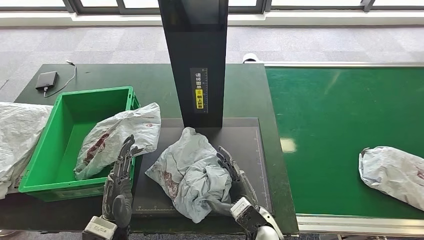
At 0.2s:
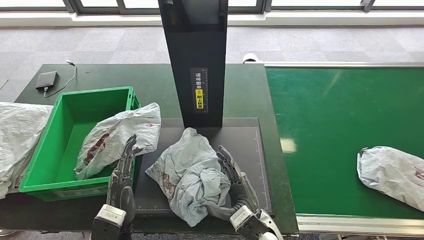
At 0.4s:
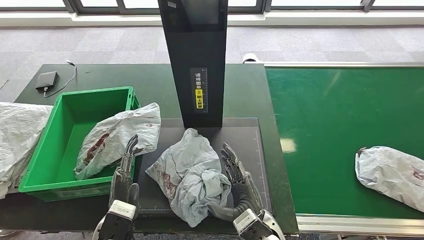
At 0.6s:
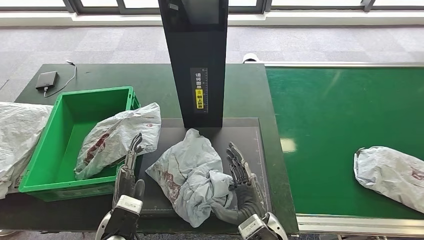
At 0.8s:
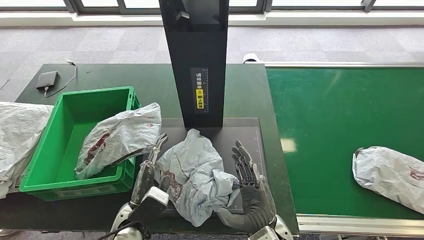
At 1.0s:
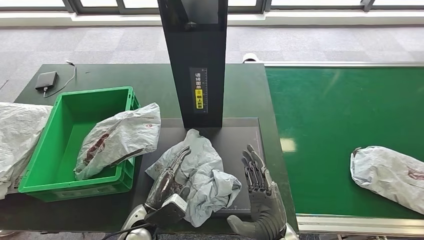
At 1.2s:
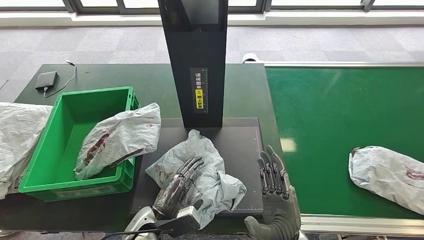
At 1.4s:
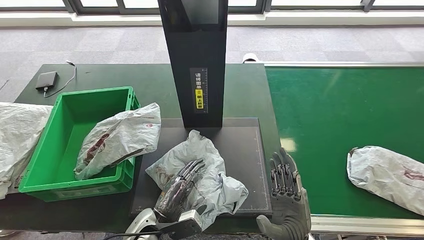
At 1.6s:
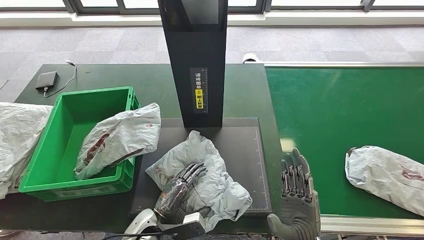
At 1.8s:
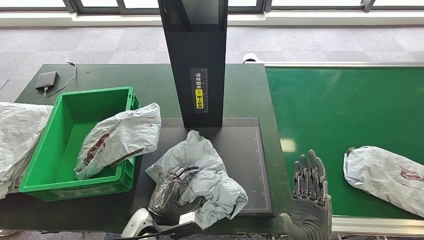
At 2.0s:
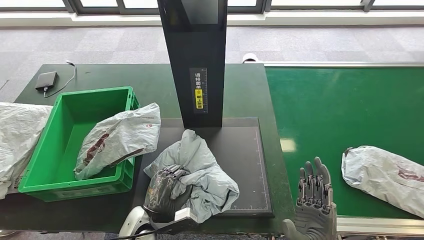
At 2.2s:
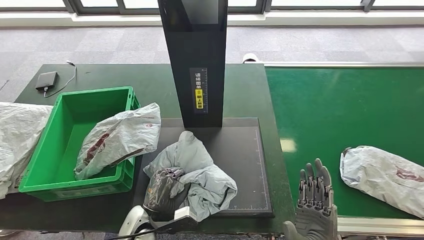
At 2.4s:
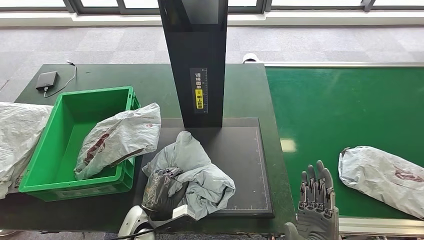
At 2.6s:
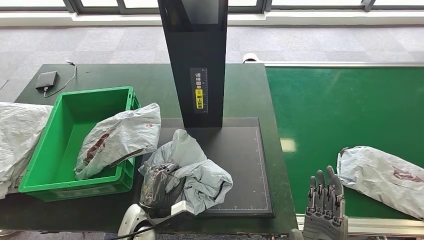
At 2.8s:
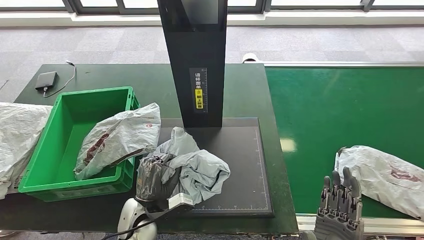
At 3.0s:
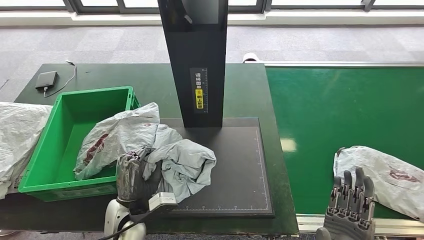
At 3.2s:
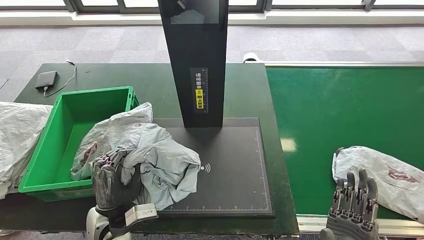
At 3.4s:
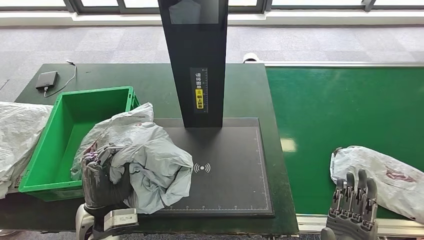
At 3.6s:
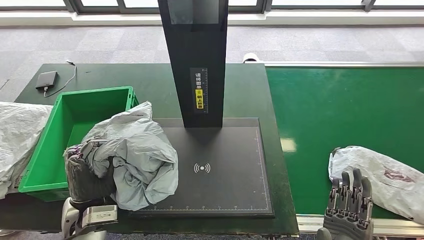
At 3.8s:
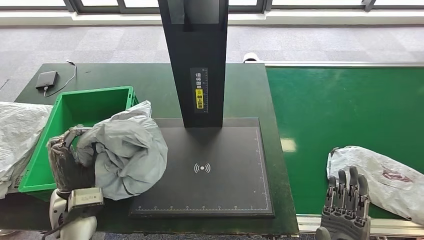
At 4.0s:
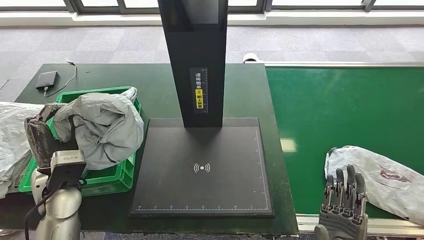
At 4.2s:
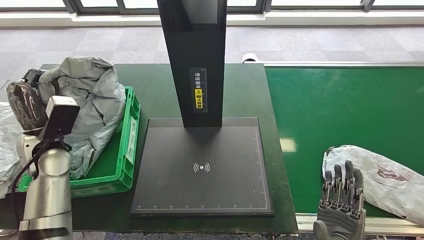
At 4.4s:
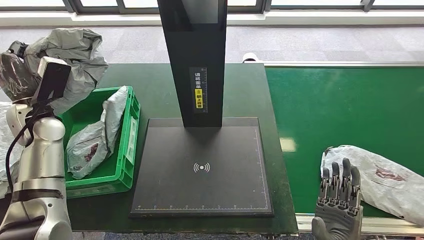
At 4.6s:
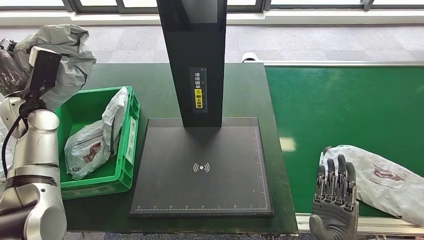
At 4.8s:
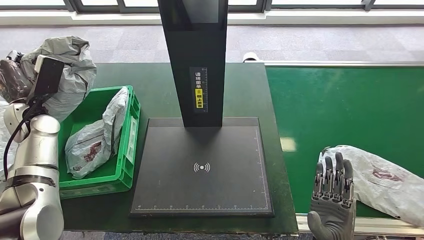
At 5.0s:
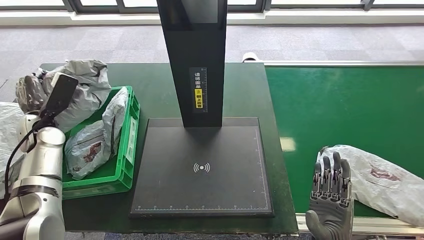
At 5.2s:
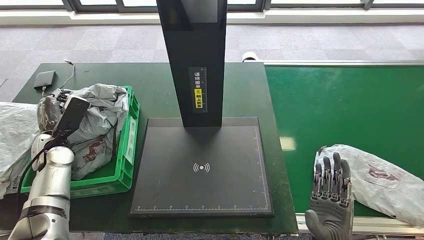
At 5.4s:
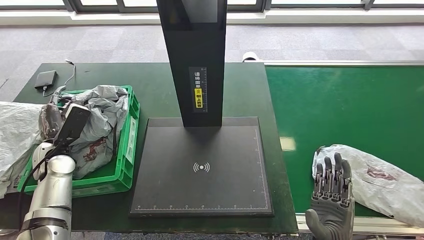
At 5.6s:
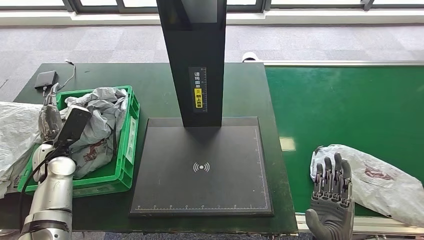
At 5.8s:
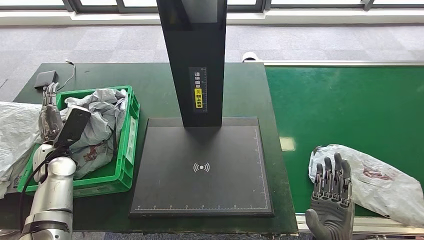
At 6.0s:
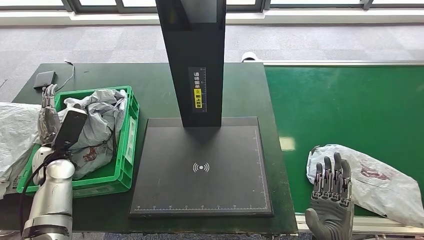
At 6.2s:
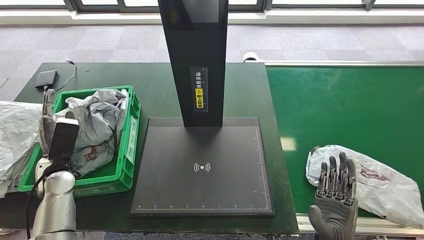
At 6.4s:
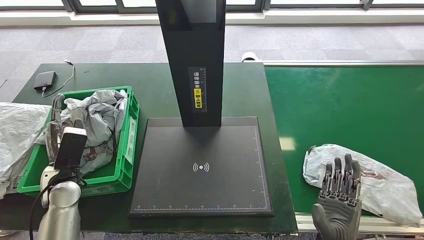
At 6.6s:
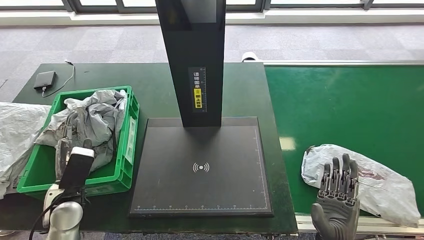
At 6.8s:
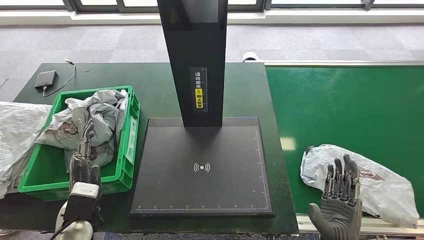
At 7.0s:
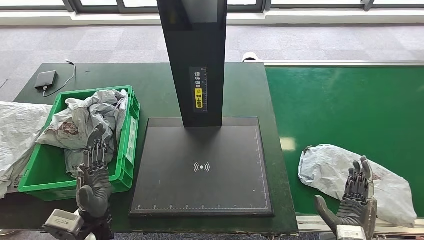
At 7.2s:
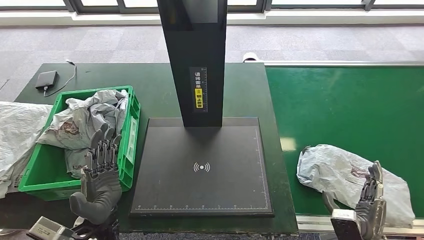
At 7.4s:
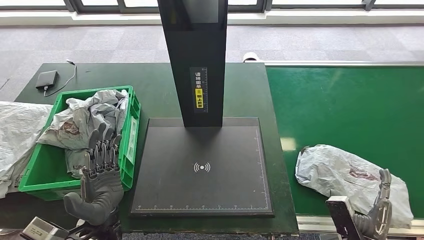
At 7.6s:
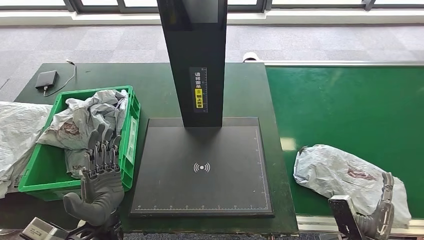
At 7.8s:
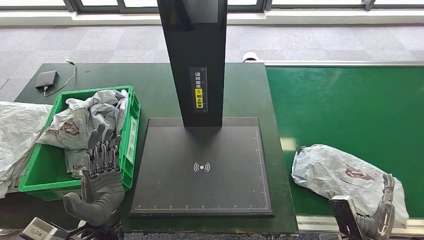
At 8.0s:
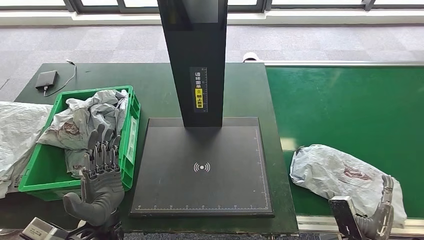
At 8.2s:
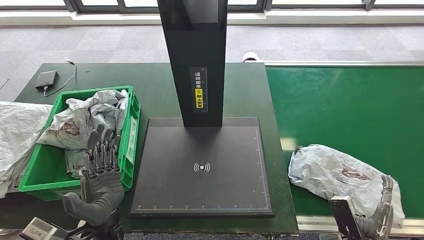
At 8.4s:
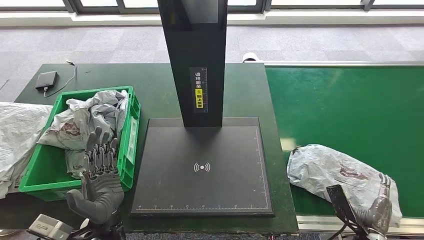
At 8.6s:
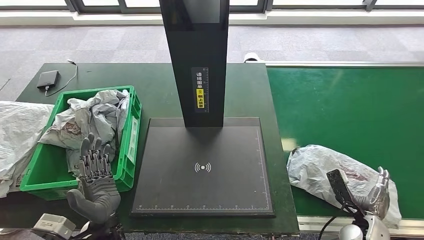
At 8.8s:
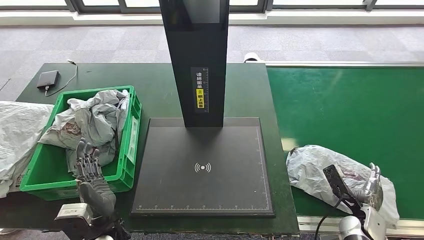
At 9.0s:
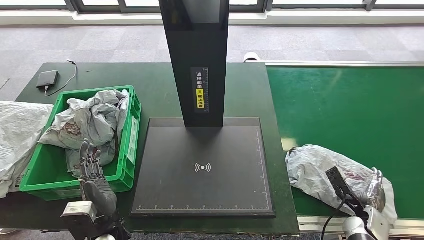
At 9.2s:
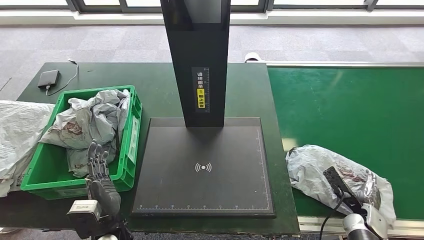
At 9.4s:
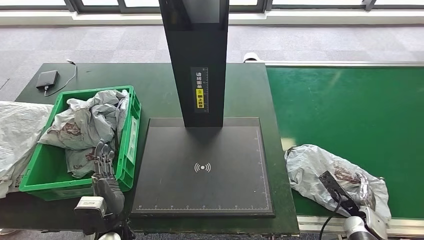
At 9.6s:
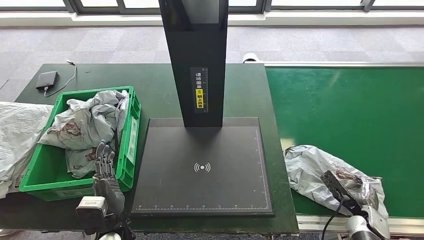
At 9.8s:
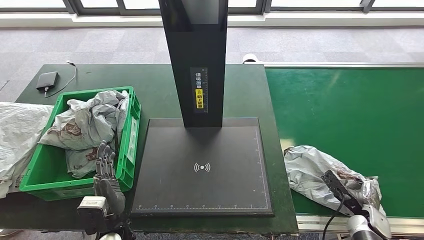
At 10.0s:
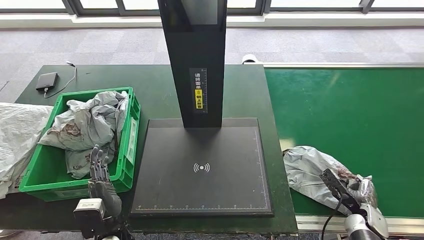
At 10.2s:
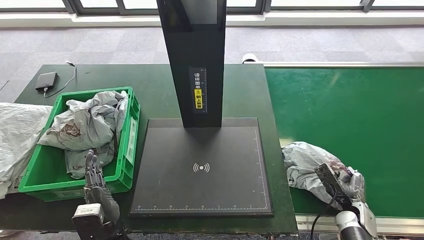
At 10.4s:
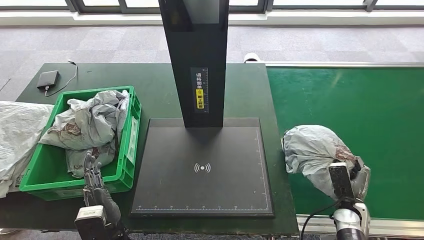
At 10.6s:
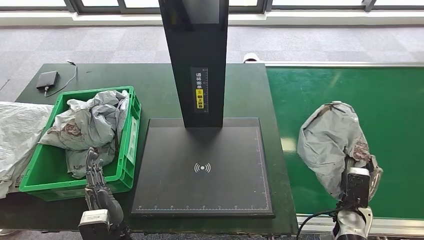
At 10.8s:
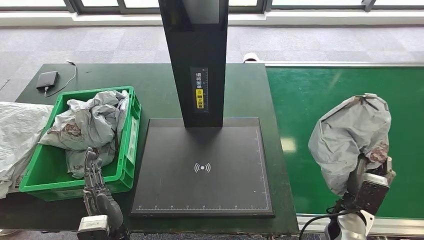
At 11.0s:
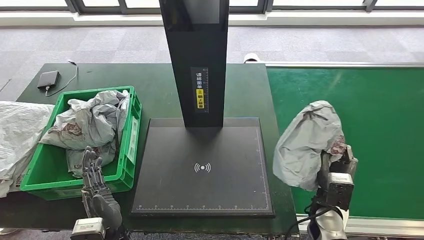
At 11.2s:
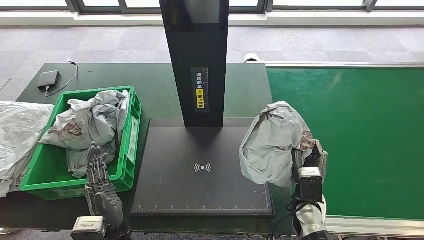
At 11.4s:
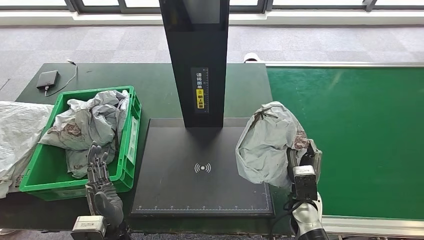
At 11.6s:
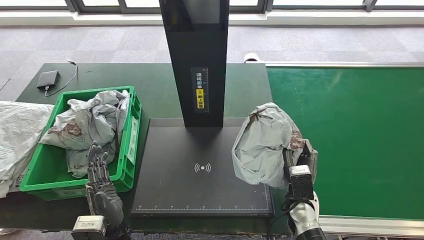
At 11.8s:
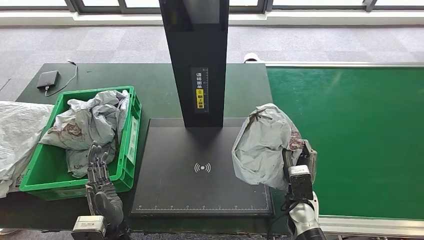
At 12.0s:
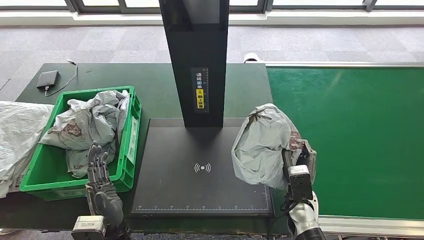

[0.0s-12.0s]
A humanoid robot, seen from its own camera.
Step, 0.0s to 2.6s: Pick up the parcel from the inbound machine.
Step, 3.0s to 6.6s: Place the parcel into the delivery box.
Step, 6.8s to 11.4s: Pick up the parcel from the conveyor belt.
0.0s to 1.6s: The right hand heads to the right, backward and upward, covering about 10 cm, while the left hand travels downward and to the right by some 10 cm.
1.6s to 3.0s: The left hand is displaced upward by approximately 5 cm; the right hand changes place by some 5 cm.
6.0s to 7.6s: The right hand shifts roughly 15 cm to the right and downward, while the left hand heads to the right and backward, covering approximately 25 cm.
7.6s to 9.0s: The right hand is displaced forward and to the right by approximately 10 cm.
10.4s to 12.0s: The right hand moves to the left, some 15 cm.

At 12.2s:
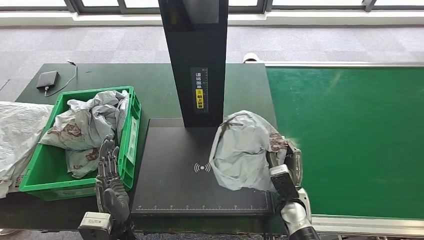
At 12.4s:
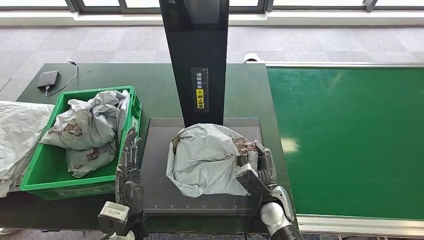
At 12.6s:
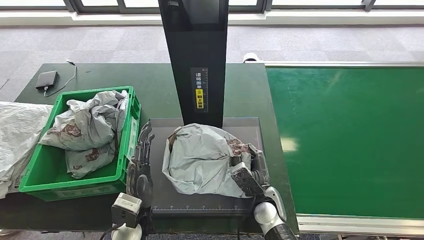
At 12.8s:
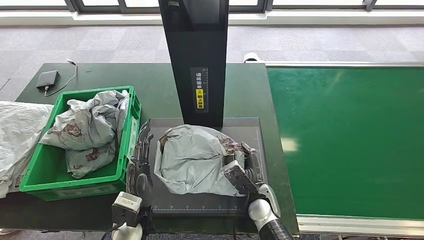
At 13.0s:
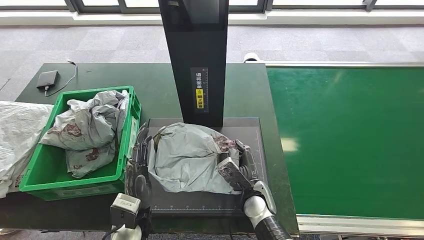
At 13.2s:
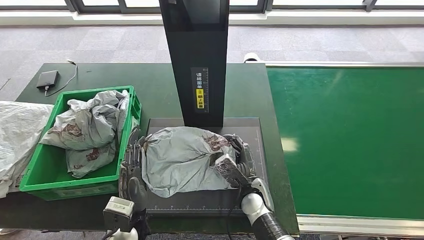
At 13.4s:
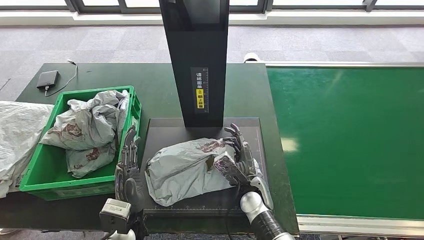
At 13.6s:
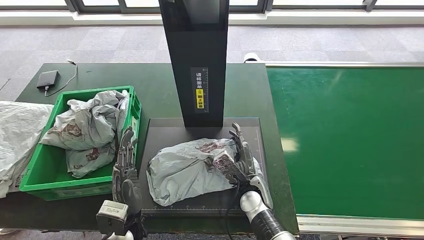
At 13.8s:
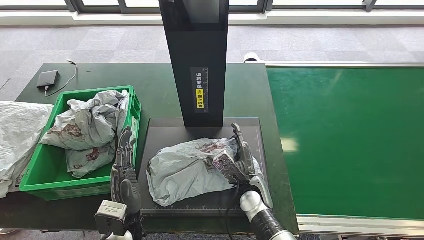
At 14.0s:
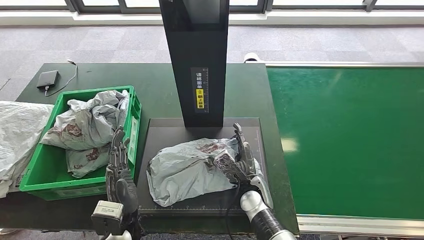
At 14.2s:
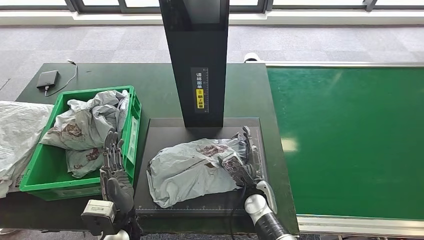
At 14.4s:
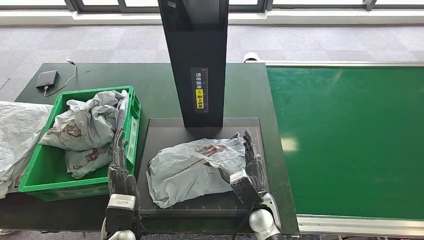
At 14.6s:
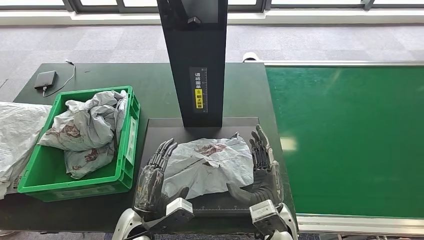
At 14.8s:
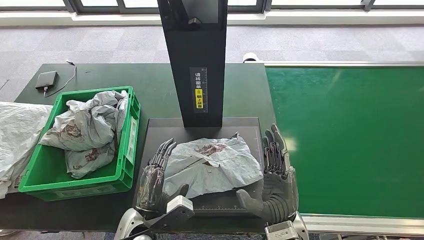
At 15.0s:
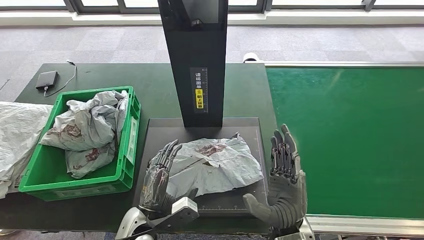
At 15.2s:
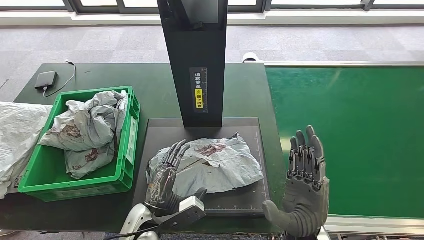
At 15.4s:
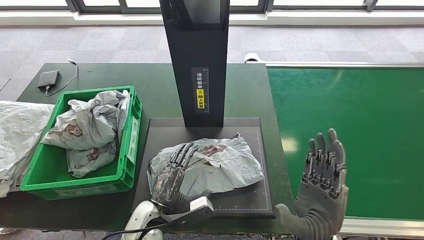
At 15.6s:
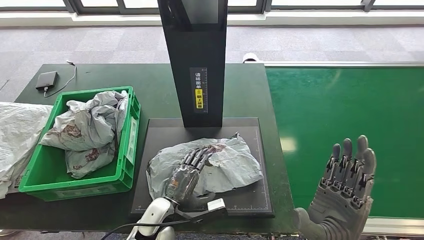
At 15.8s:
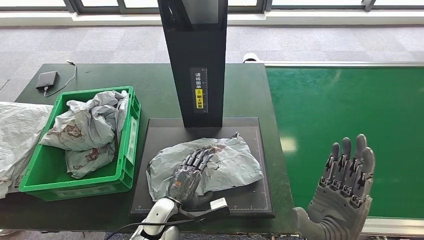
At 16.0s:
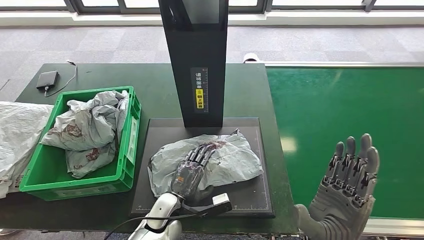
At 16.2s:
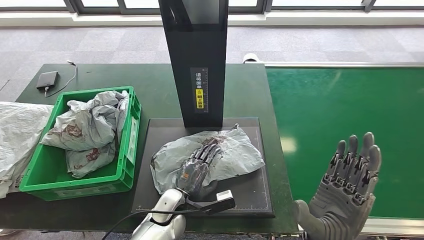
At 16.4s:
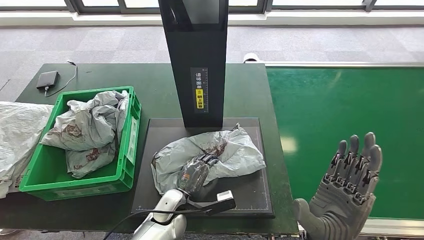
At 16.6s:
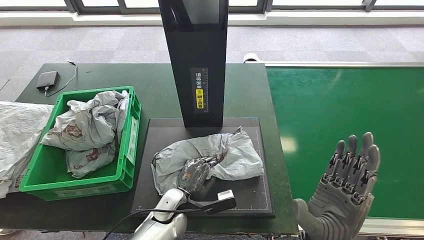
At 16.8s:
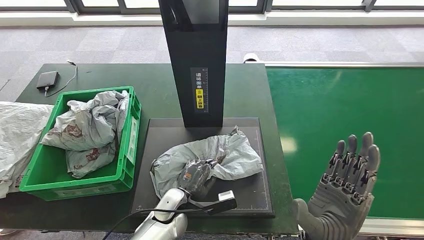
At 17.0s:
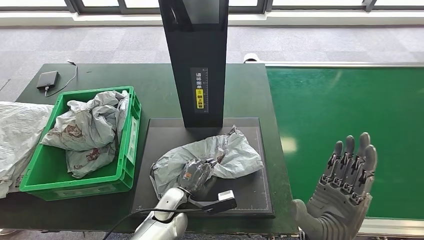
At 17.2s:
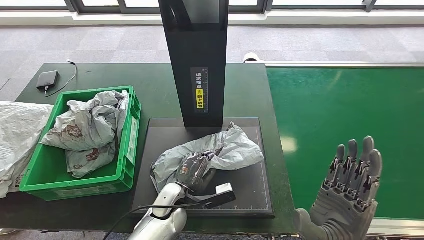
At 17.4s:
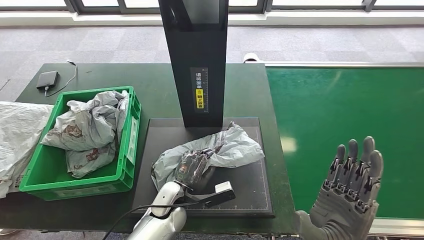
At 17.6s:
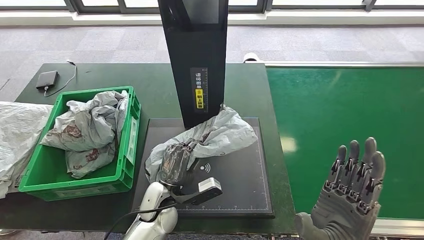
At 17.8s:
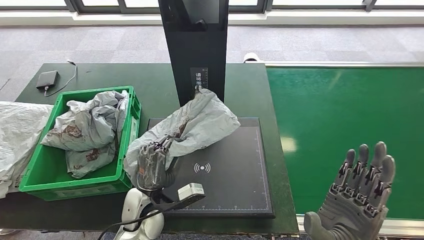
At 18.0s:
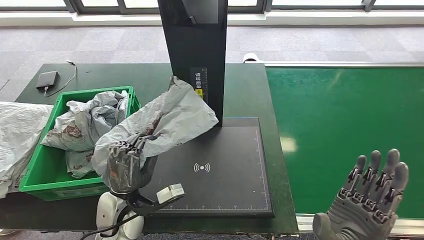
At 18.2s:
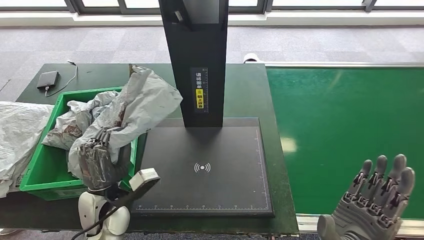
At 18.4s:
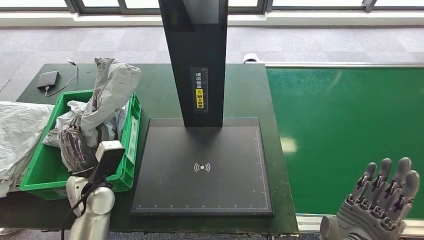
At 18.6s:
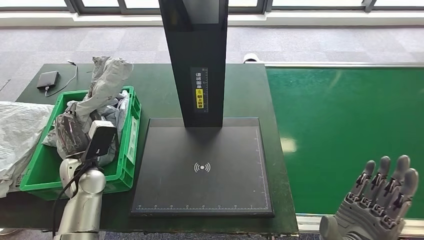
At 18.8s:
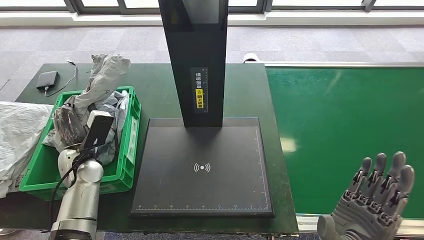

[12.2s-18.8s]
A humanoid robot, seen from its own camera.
Step, 12.2s to 14.2s: Place the parcel onto the inbound machine.
Step, 14.4s to 17.6s: Pick up the parcel from the inbound machine.
12.2s to 13.8s: The right hand moves to the left, roughly 10 cm.
13.8s to 15.4s: The right hand goes some 20 cm upward, backward and to the right.
15.4s to 17.2s: The left hand goes some 5 cm forward.
17.2s to 18.8s: The left hand goes roughly 25 cm to the left.
